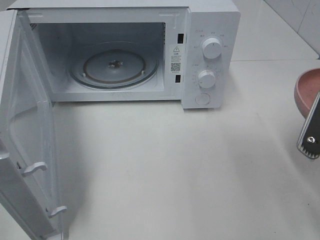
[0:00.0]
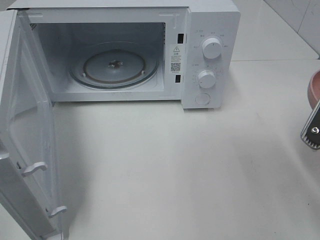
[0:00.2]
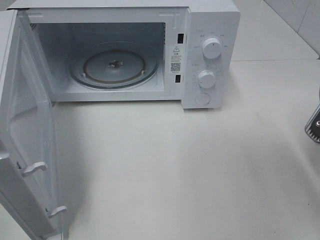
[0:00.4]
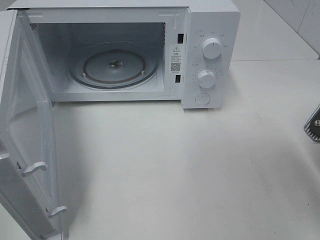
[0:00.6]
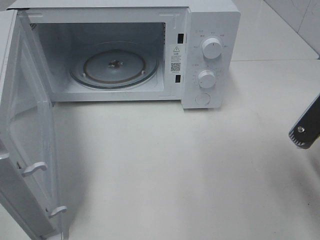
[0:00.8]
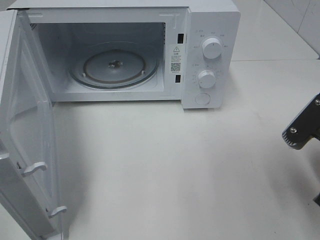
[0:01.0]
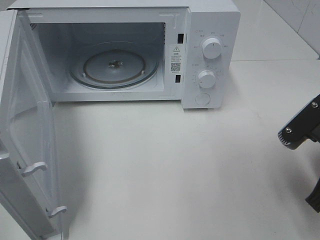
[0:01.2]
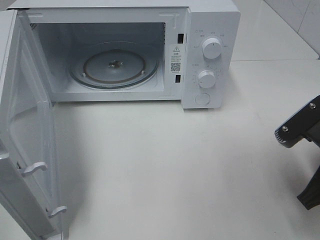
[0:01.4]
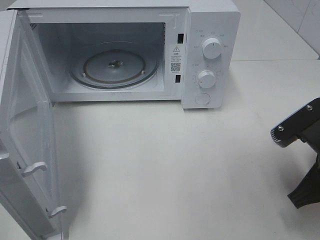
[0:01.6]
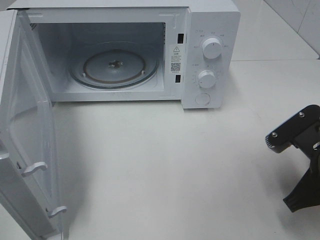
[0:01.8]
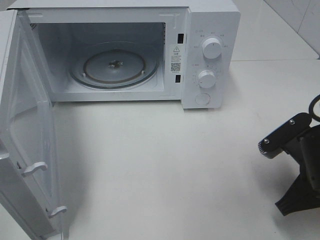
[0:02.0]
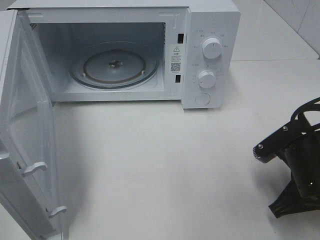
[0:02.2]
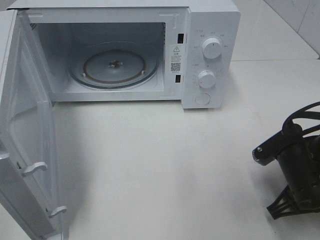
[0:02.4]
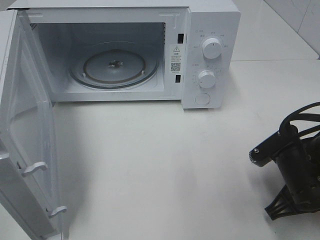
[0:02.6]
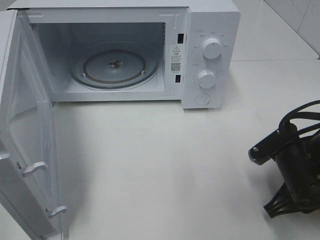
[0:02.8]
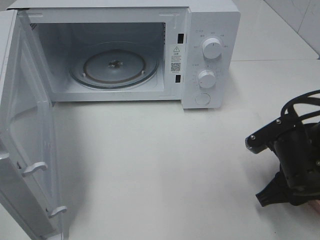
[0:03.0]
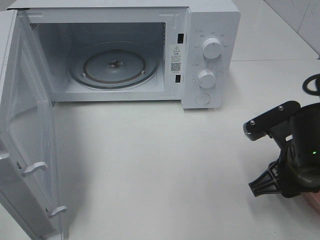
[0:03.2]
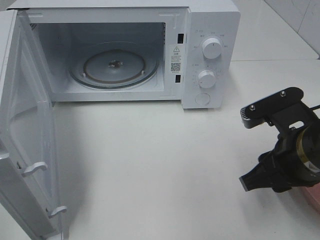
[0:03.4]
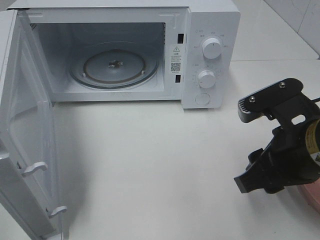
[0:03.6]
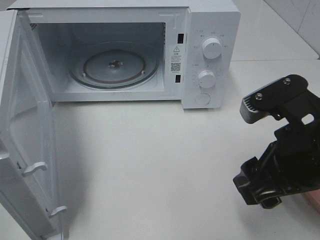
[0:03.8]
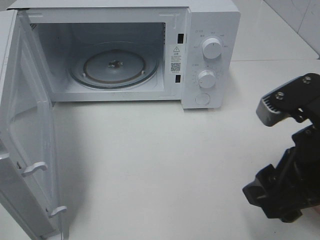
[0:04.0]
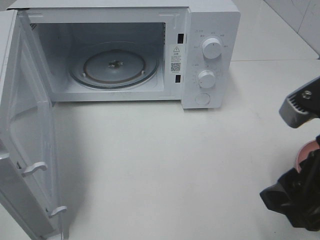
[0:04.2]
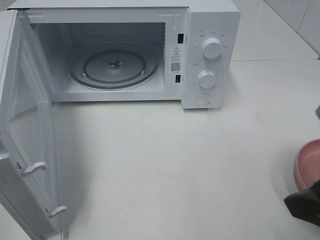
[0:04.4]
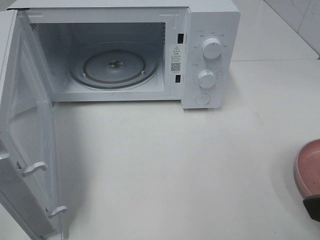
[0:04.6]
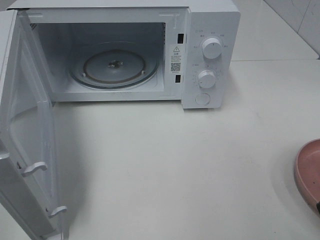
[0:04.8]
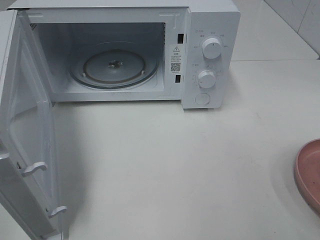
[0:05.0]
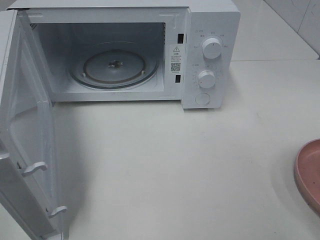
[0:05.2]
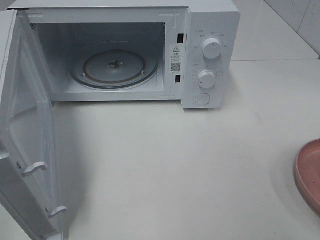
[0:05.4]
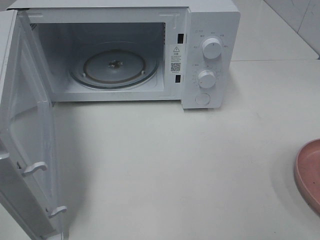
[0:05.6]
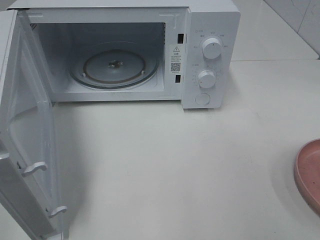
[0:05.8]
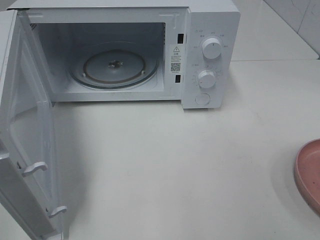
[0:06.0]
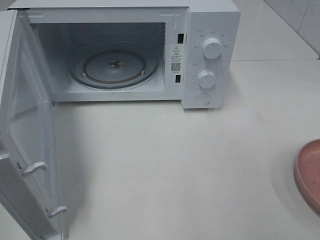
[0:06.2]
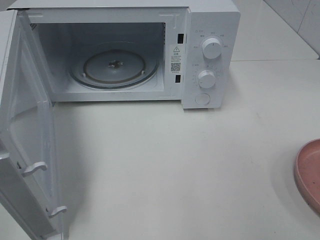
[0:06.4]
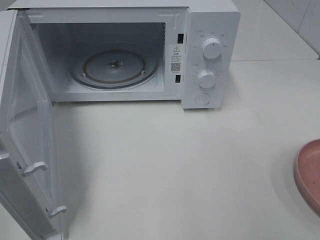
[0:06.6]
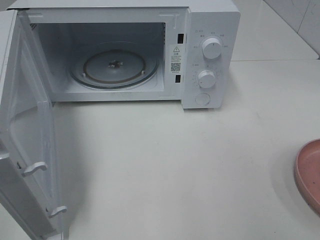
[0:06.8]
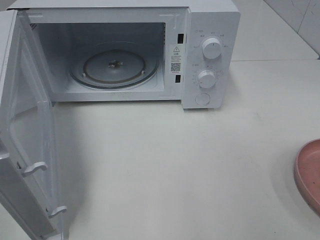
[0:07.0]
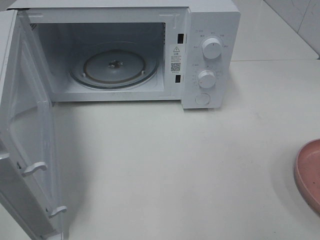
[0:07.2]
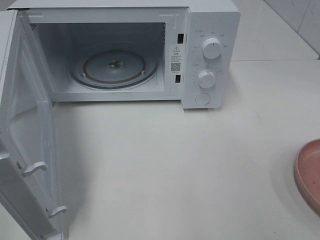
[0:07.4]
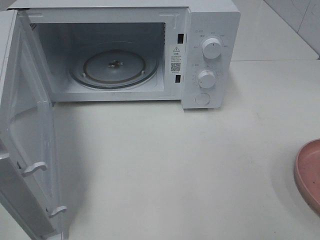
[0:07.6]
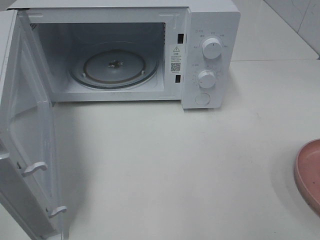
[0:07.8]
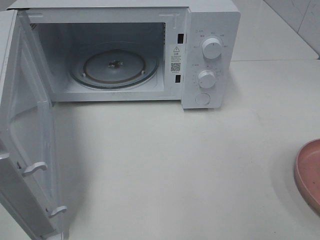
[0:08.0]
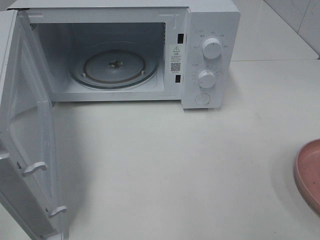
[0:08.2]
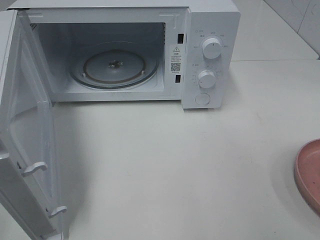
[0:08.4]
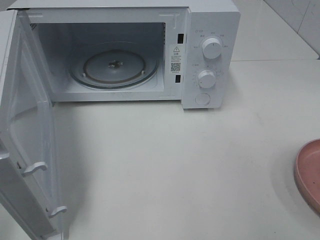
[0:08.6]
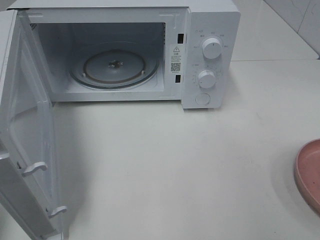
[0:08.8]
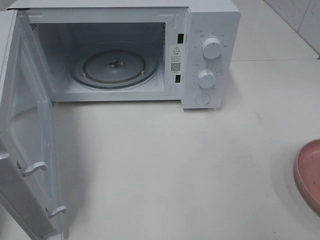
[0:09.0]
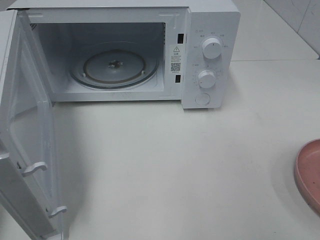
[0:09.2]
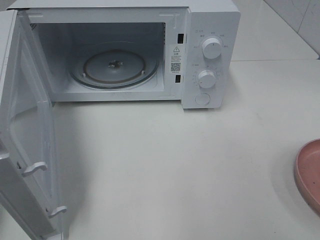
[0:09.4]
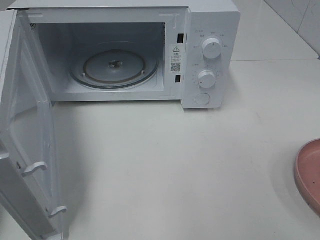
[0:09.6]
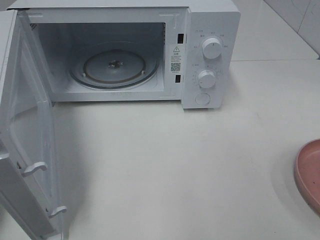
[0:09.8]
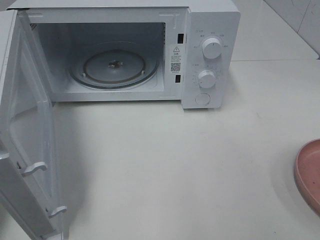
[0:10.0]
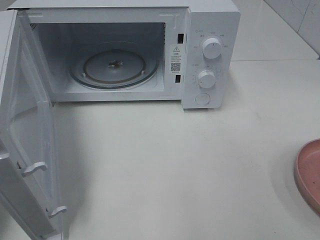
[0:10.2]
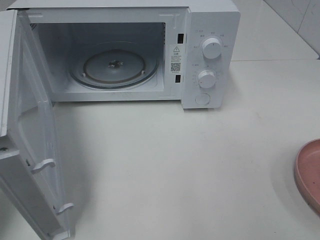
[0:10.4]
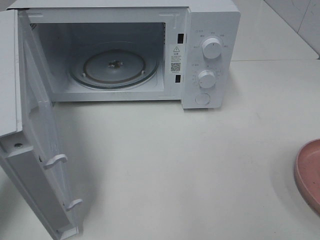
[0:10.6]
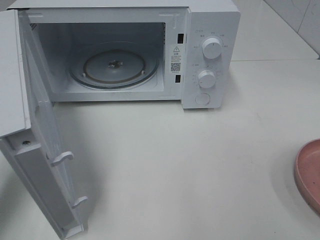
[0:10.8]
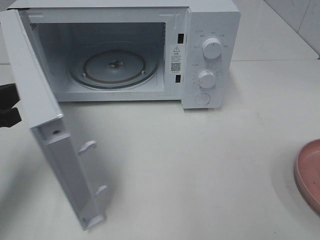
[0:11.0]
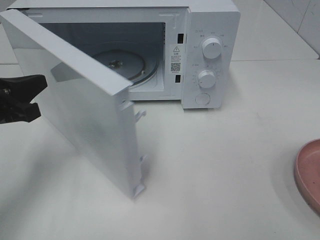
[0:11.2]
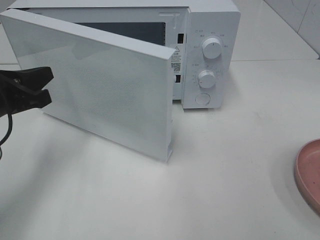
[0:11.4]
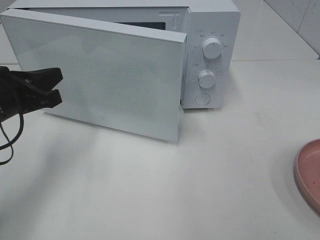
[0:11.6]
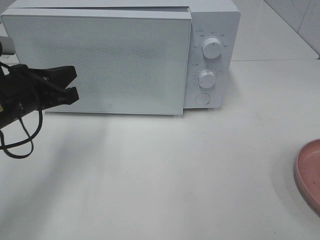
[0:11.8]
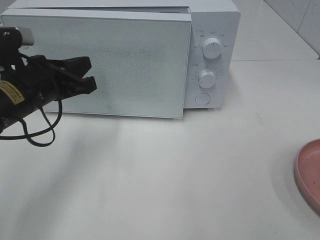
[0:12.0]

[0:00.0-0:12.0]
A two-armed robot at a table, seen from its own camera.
Task of the whole recording: Heat the burger.
Step, 0:00.0 to 0:03.0: Right hand: place the plate on the table.
0:00.0 to 0:01.6: The right gripper travels downward by some 5 cm.
0:01.6 to 0:03.0: The right gripper moves some 5 cm, and opens its fingers.
0:03.0 to 0:04.4: The right gripper travels upward and backward by some 15 cm, and opens.
0:04.4 to 0:06.0: The right gripper shifts roughly 15 cm backward and to the right.
0:06.0 to 0:07.6: Neither gripper changes place.
0:09.0 to 0:10.4: The left gripper heads downward and forward, covering roughly 10 cm.
0:10.4 to 0:12.0: The left gripper goes some 15 cm to the right and forward.

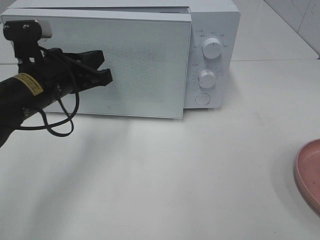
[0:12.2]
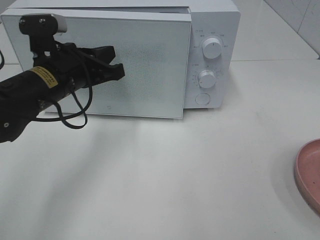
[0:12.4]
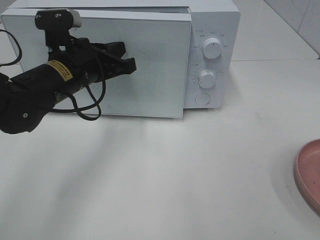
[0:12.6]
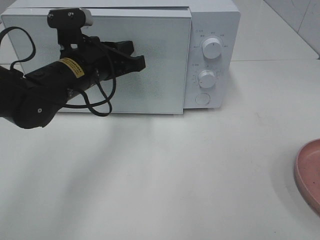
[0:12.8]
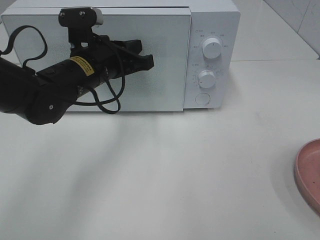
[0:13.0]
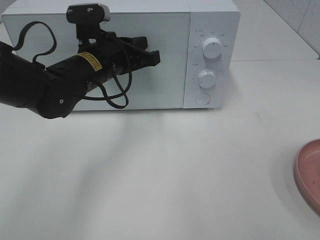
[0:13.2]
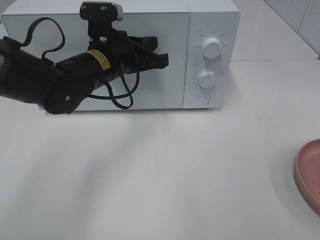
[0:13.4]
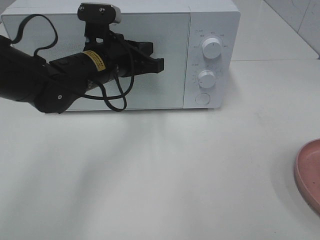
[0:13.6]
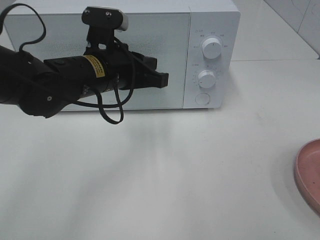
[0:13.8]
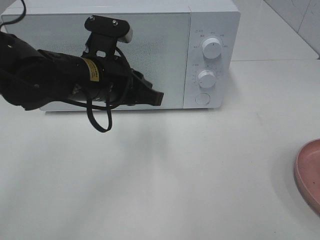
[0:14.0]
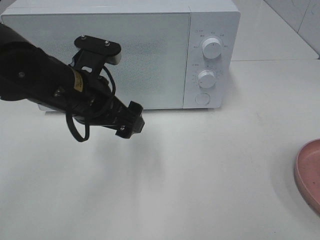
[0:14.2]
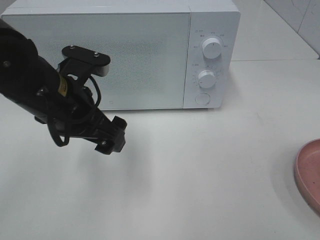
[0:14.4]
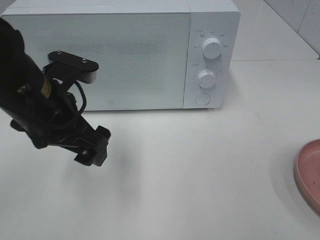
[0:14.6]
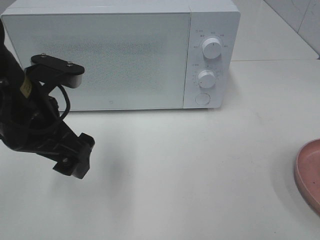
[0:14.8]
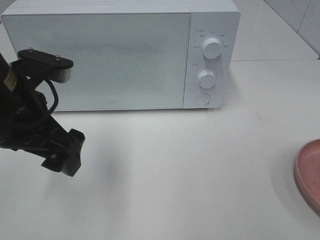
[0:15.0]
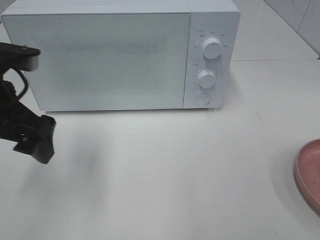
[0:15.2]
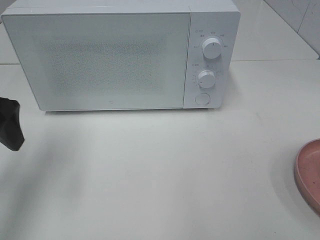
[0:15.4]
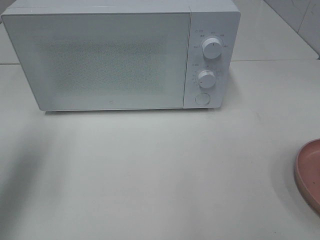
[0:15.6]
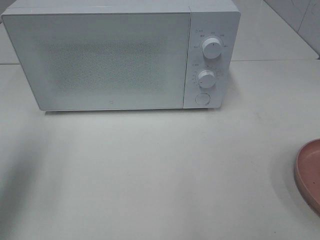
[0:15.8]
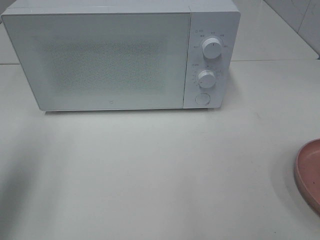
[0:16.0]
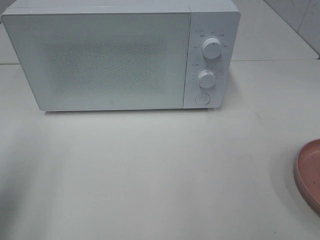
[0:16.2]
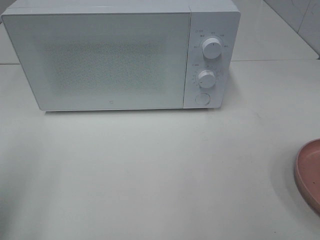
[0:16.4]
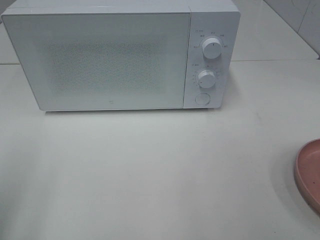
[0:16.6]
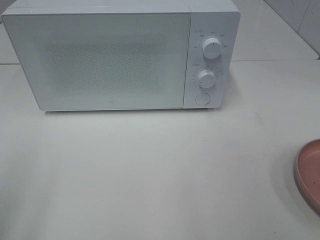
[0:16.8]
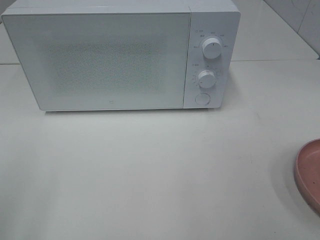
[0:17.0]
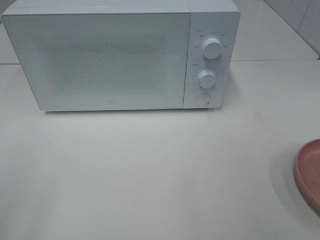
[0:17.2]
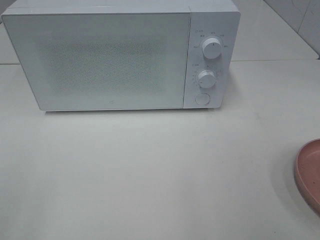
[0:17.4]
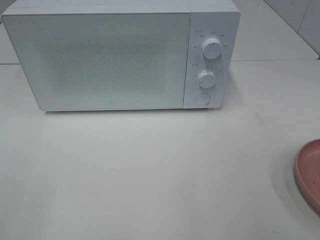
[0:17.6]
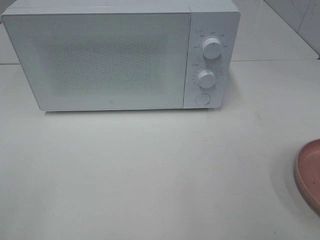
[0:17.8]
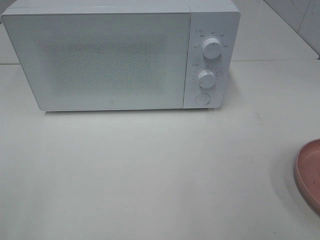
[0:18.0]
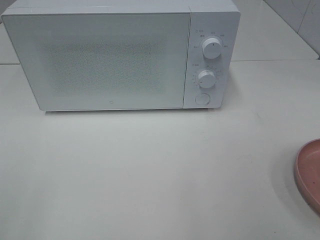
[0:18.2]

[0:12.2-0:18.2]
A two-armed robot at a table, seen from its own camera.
Task of the whole recording: Heat the burger.
0:12.2 to 0:13.8: The left gripper moves to the right, about 10 cm.
0:13.8 to 0:15.2: The left gripper heads to the left and backward, covering some 15 cm, and opens up.
0:15.2 to 0:16.6: The left gripper goes roughly 20 cm backward and to the left.

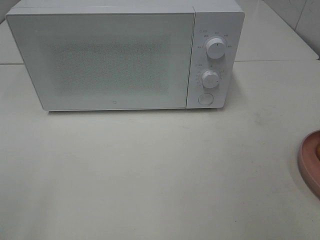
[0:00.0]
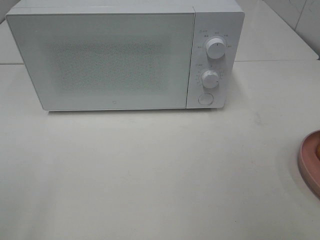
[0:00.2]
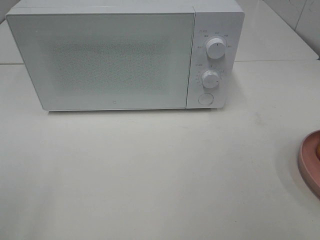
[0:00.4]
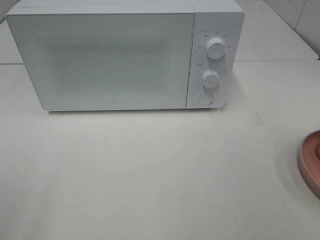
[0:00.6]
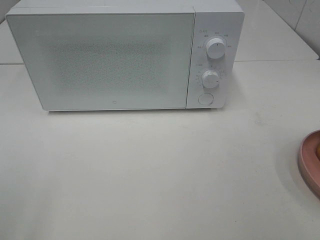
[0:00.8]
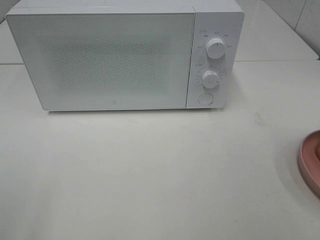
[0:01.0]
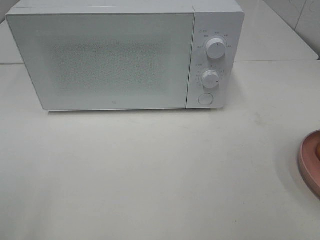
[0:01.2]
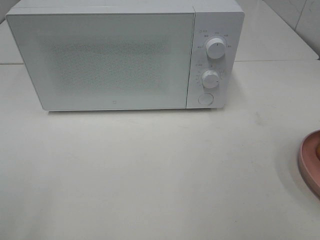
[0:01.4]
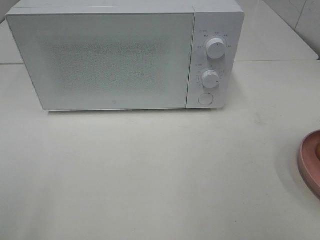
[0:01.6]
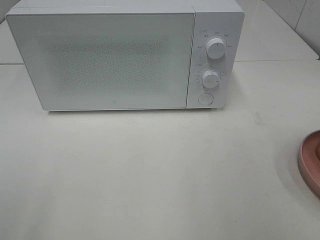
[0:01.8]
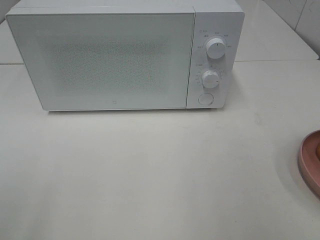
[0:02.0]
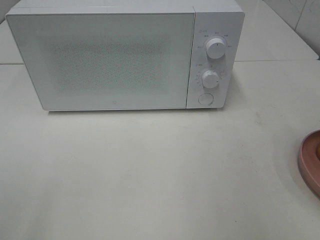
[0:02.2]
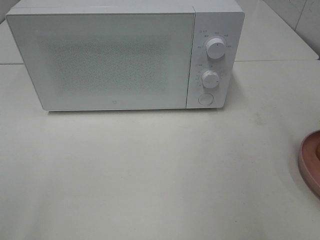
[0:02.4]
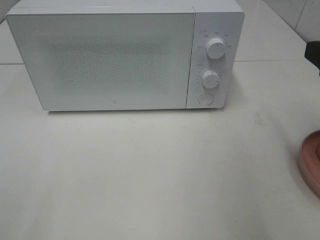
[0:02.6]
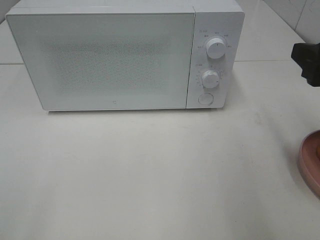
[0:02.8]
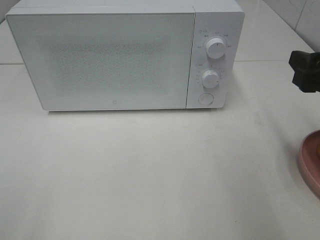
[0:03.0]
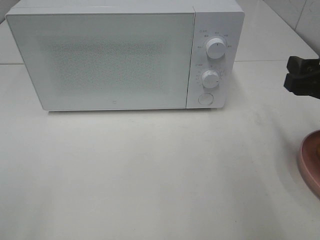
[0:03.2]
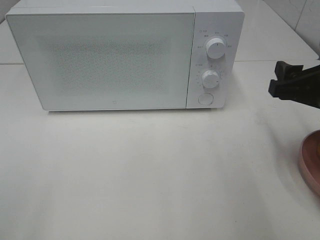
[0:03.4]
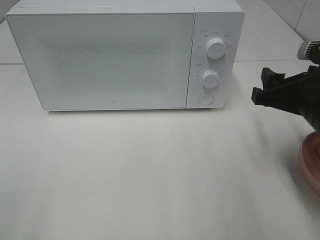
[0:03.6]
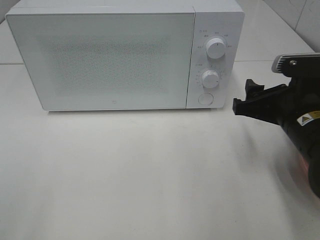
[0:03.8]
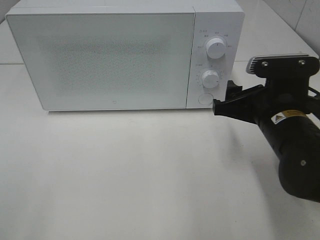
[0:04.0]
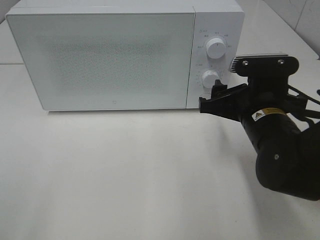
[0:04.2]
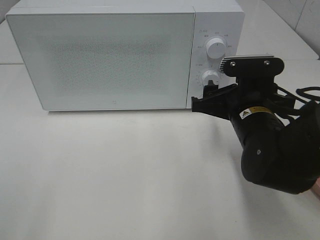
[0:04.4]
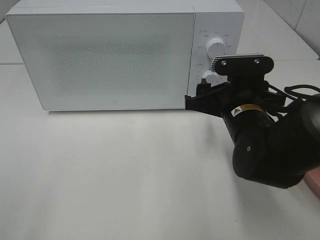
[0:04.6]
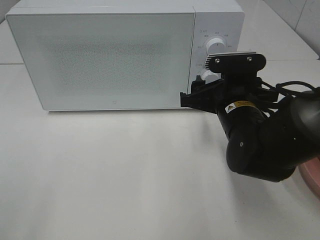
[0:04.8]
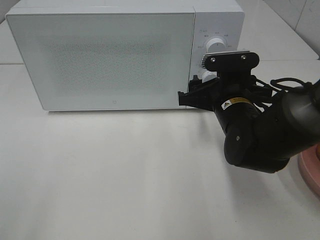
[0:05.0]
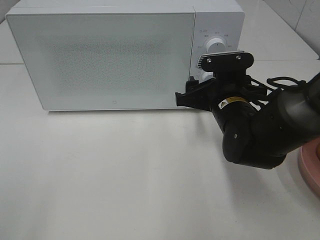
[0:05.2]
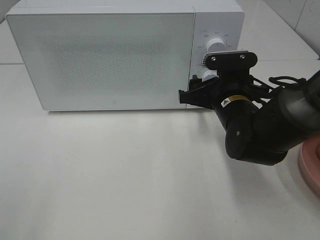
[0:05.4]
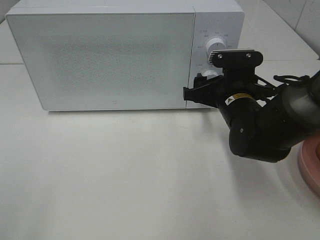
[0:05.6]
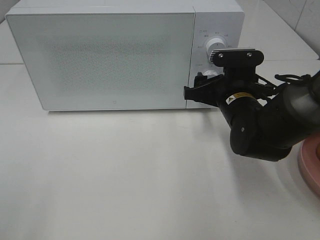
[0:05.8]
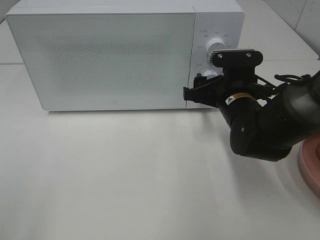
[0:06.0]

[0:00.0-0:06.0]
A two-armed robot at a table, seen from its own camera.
Task of the whole recording: Heat the burger.
0:00.0 to 0:01.6: The right gripper travels forward by approximately 5 cm.
0:01.6 to 0:03.0: The right gripper is displaced forward and downward by roughly 15 cm.
0:03.0 to 0:04.4: The right gripper is displaced to the left, downward and forward by approximately 15 cm.
0:04.4 to 0:06.0: The right gripper shifts about 5 cm forward.
